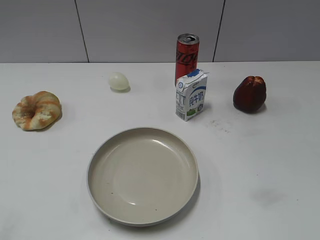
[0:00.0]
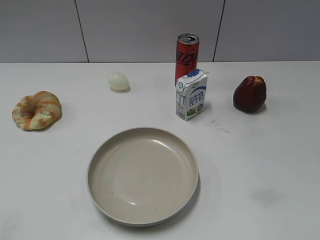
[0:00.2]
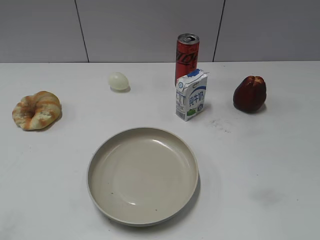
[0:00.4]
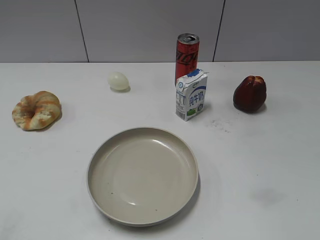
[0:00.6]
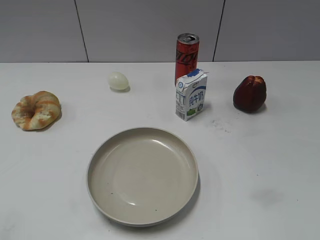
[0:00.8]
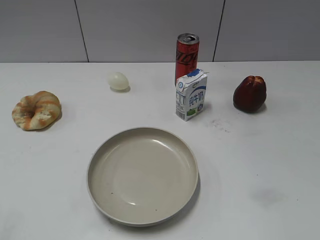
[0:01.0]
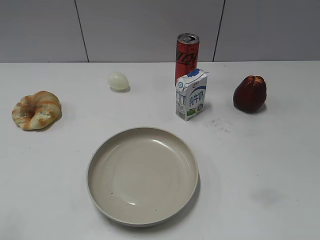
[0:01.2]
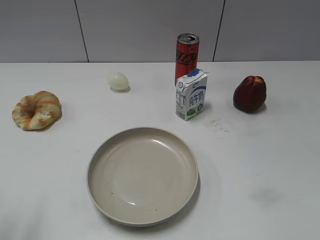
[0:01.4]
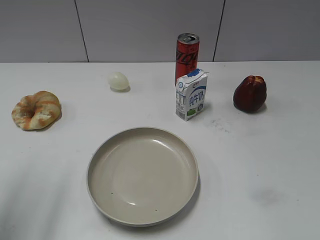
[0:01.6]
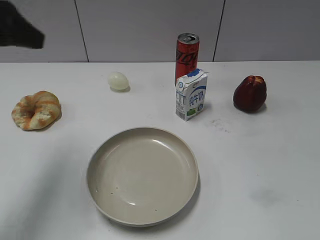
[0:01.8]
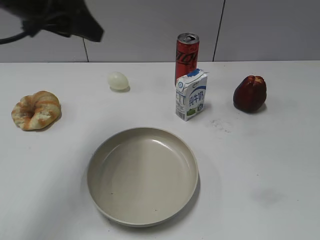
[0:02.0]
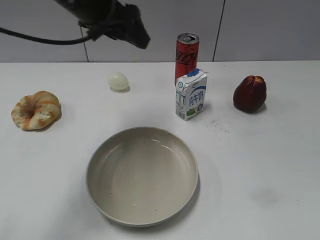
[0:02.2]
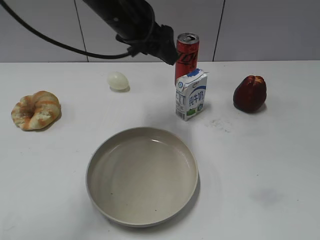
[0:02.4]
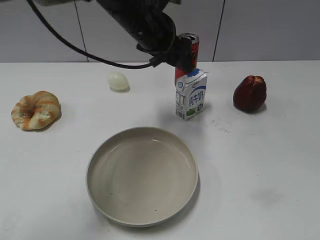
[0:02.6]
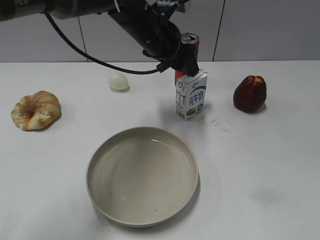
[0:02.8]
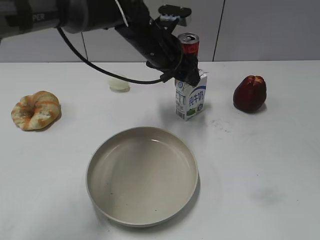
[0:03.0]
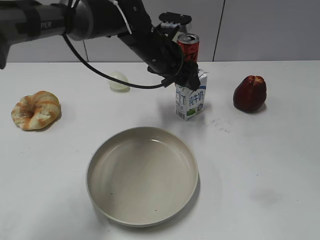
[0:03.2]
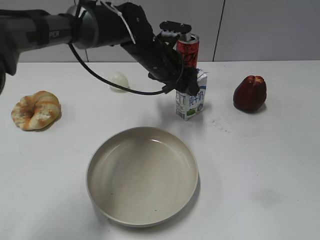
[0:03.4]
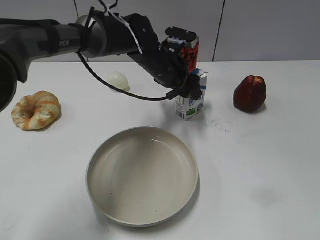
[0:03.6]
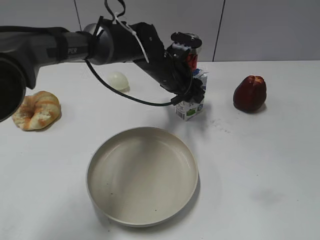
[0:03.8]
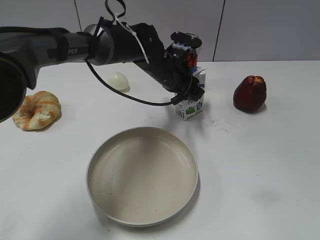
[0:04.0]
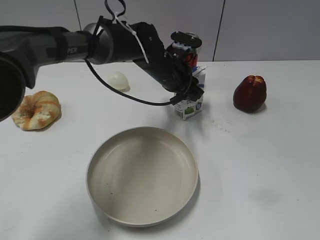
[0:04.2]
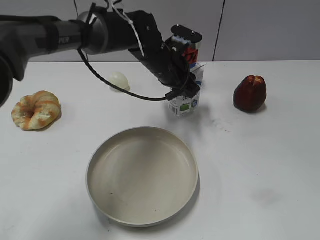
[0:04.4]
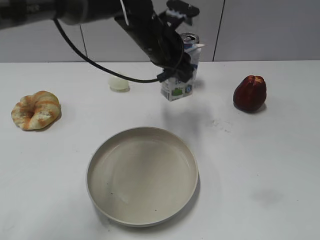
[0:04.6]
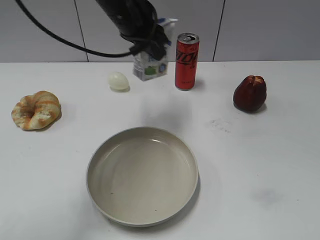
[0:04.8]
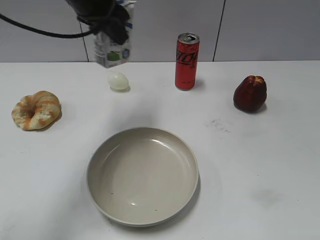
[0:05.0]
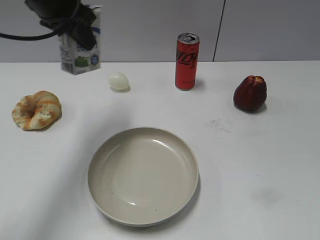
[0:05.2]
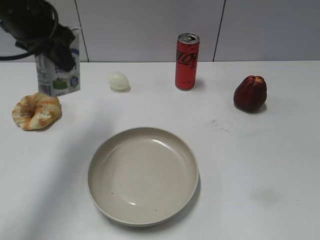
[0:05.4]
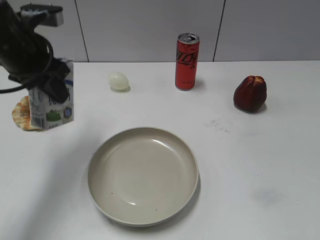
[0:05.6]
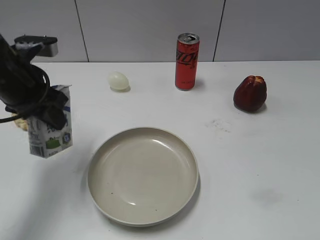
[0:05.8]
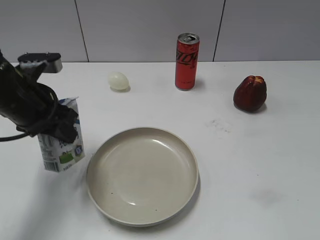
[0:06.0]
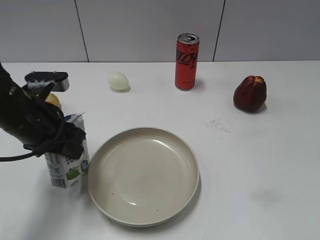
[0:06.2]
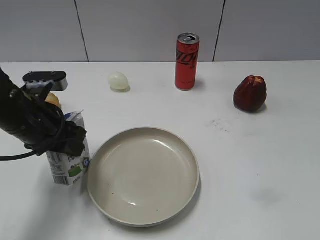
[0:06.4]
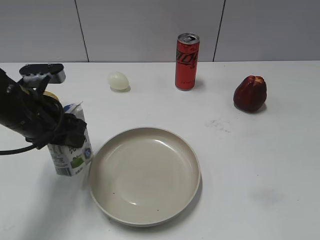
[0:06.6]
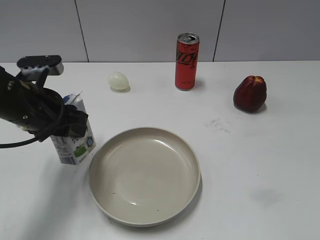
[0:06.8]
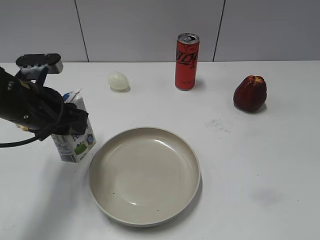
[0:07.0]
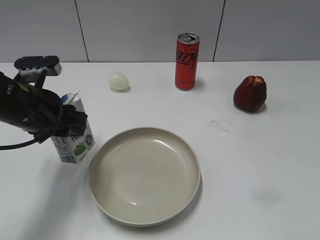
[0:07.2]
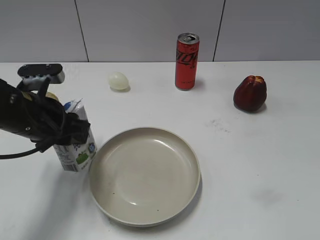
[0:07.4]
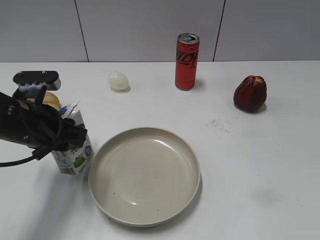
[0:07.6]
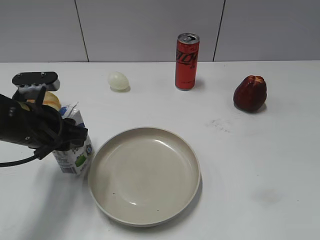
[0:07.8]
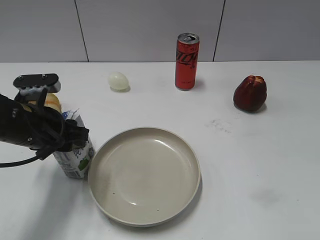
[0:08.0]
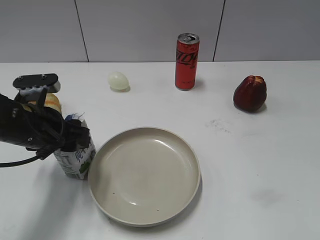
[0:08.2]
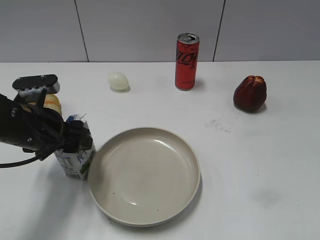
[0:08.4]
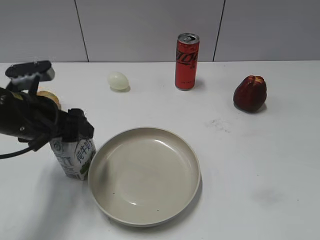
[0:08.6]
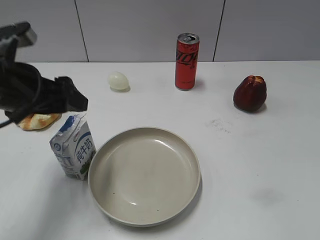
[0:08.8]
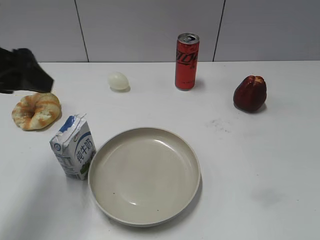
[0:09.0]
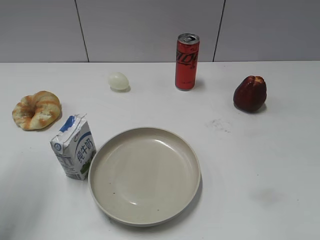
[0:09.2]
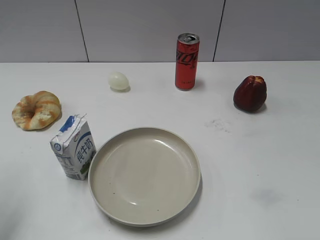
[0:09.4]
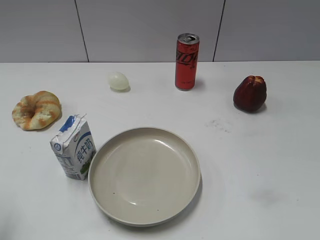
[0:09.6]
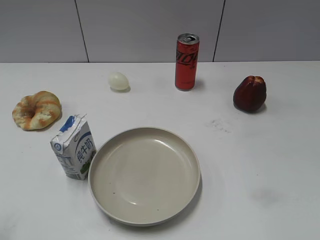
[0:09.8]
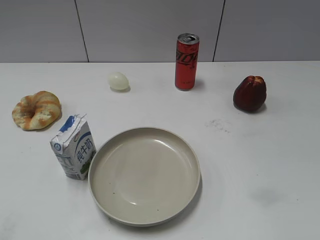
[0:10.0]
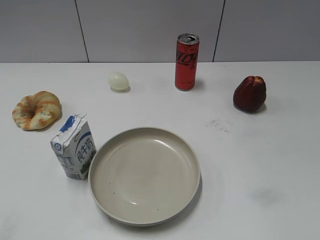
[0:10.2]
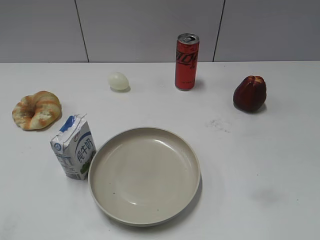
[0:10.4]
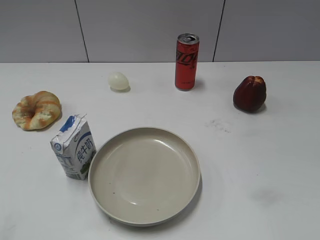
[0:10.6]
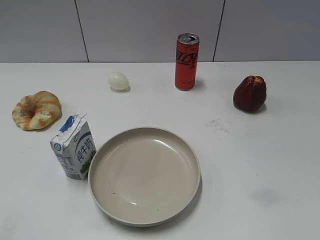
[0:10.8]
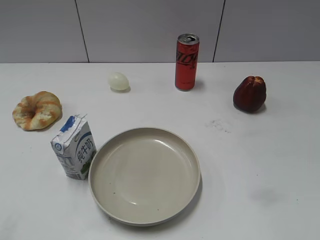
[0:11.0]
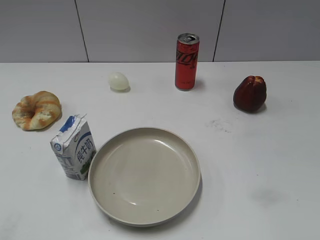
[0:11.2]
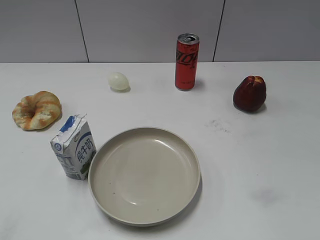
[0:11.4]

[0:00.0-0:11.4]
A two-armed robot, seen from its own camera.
Step, 0:01.0 to 0:04.0: Grasp the milk with left gripper.
Step, 0:04.2 to 0:08.6: Place the milk on the table with left gripper.
0:01.4 to 0:02.8: The left gripper heads to the right and forward, covering some 40 cm.
0:02.8 to 0:04.2: The left gripper travels downward by some 10 cm, and closes up.
0:04.2 to 0:05.6: The left gripper heads to the left and upward, covering approximately 25 cm.
0:05.6 to 0:07.2: The left gripper is displaced downward and backward by about 10 cm.
0:07.2 to 0:08.6: The left gripper opens.
0:08.6 to 0:10.0: The left gripper shifts some 25 cm backward, to the left and upward.

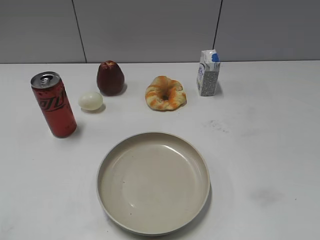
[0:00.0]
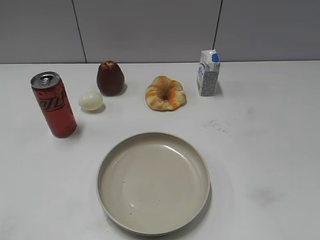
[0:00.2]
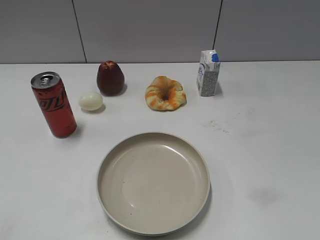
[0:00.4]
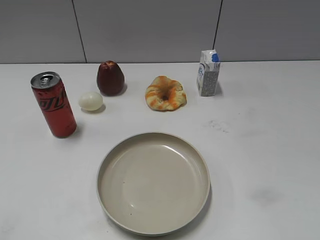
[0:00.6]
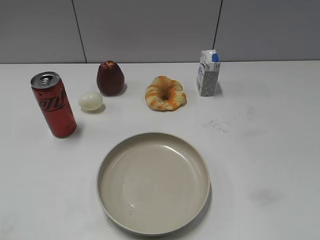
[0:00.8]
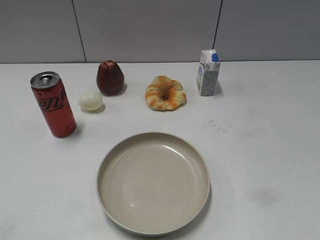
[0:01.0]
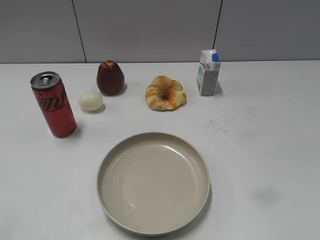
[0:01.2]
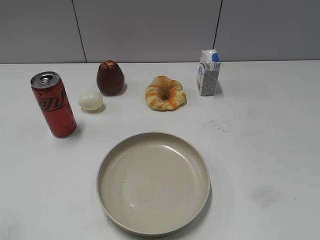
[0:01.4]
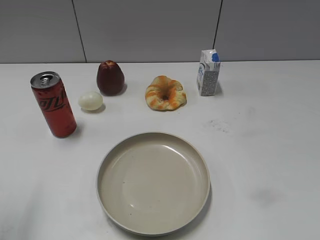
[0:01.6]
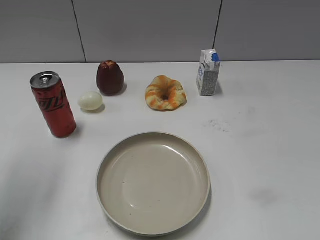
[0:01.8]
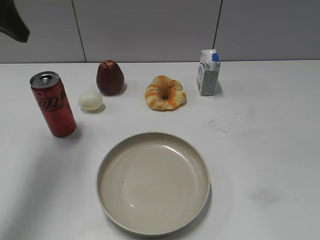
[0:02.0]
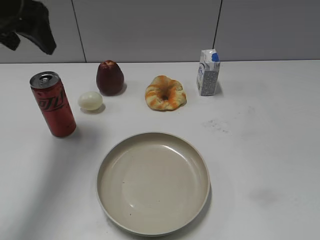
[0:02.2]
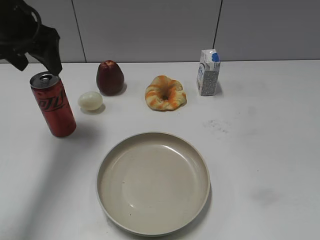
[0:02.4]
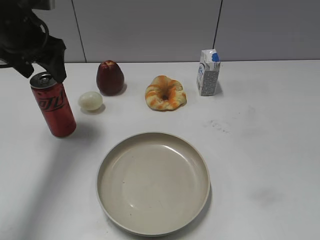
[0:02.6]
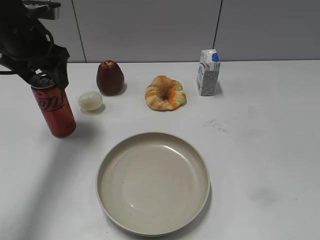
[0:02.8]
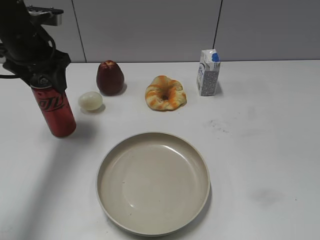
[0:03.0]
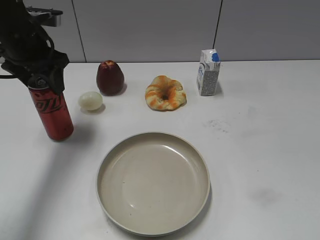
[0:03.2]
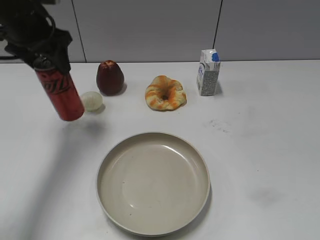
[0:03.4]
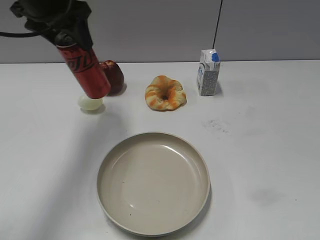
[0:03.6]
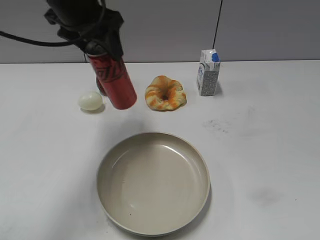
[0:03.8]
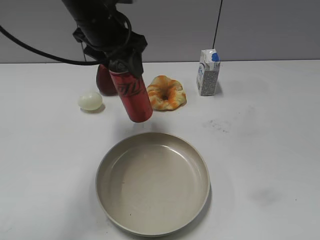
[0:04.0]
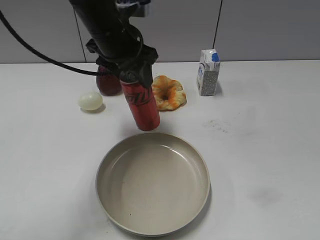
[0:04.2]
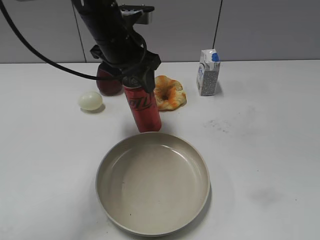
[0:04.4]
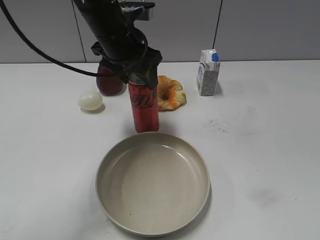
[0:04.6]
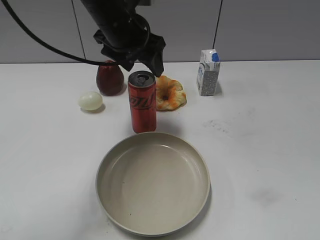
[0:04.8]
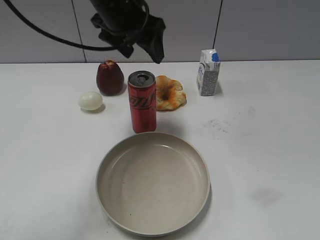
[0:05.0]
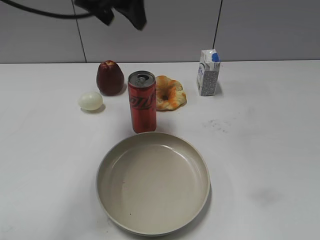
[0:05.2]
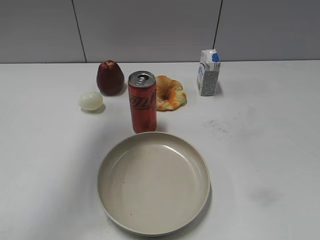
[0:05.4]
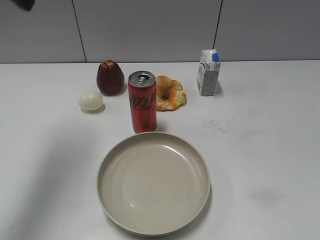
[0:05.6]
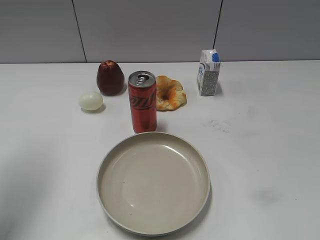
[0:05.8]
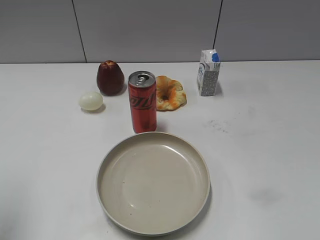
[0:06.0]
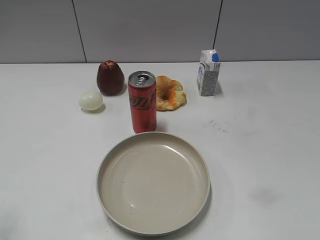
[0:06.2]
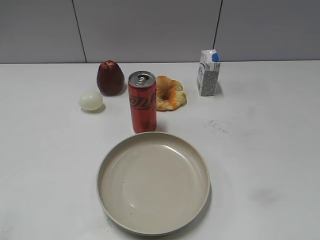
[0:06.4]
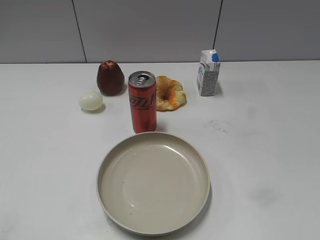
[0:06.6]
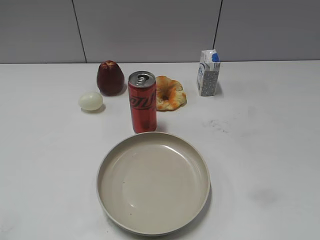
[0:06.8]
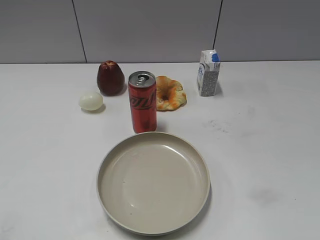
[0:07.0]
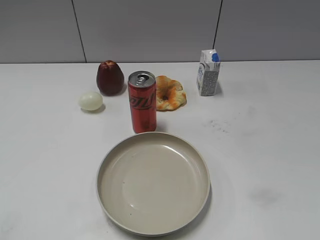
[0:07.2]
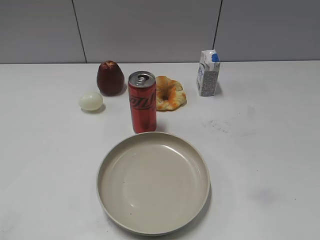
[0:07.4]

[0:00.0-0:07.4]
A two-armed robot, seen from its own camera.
Step, 0:00.6 to 0:03.0: Grasp the cola with left gripper.
Step, 0:03.2 to 0:04.8: Place the cola on the table with left gripper.
0:01.4 to 0:03.0: The left gripper is displaced forward by roughly 30 cm, and closes.
0:03.0 to 0:04.4: The left gripper heads to the right, covering approximately 15 cm.
0:04.4 to 0:06.0: The left gripper moves to the left and backward, approximately 30 cm, and opens.
0:06.0 to 0:07.4: The left gripper heads backward, covering roughly 15 cm.
